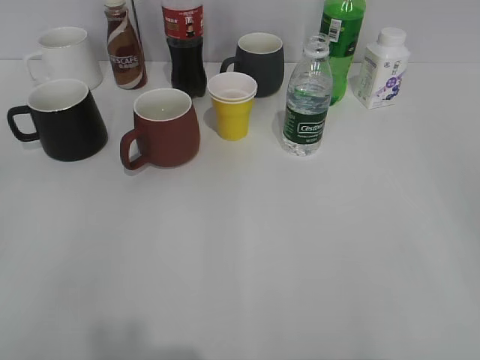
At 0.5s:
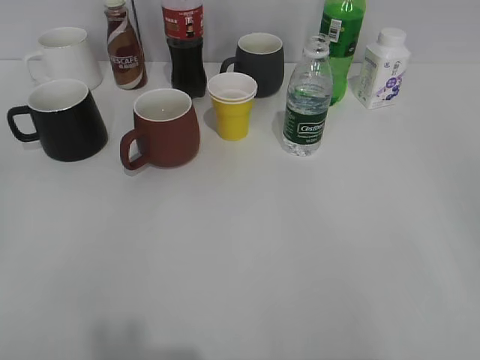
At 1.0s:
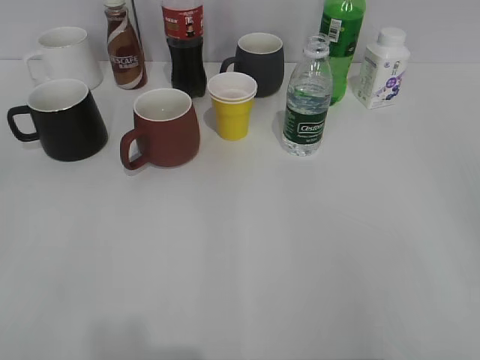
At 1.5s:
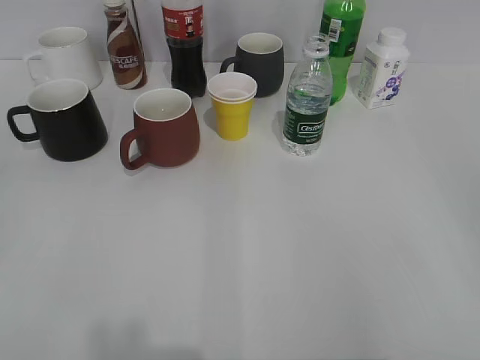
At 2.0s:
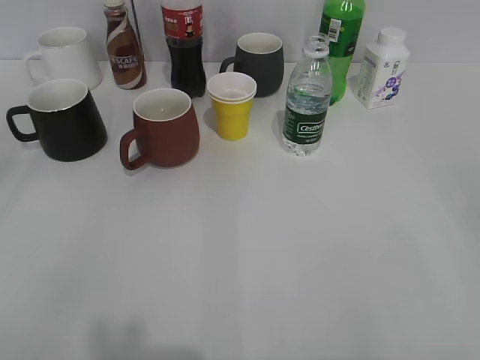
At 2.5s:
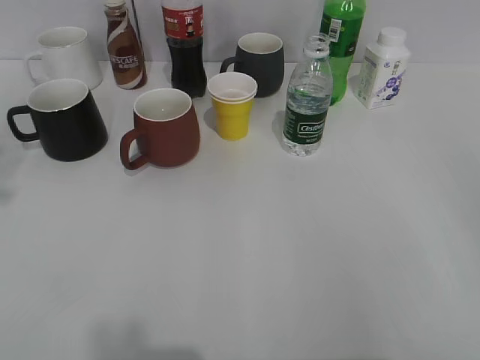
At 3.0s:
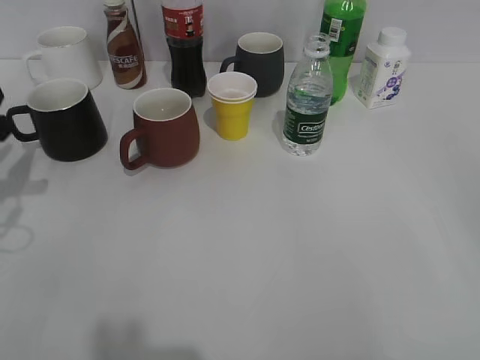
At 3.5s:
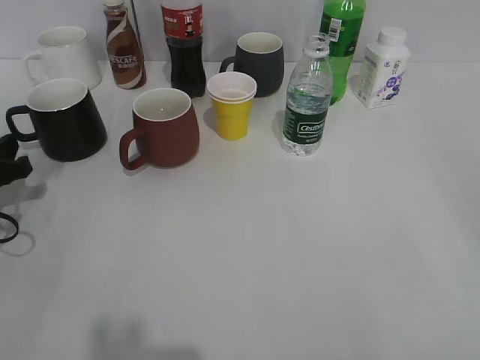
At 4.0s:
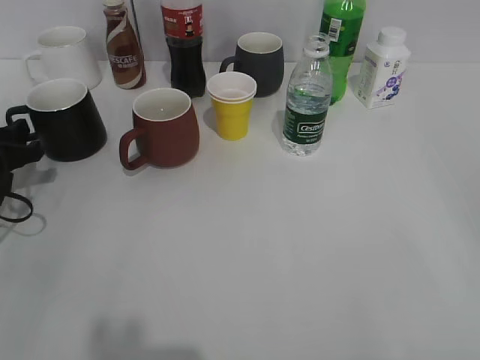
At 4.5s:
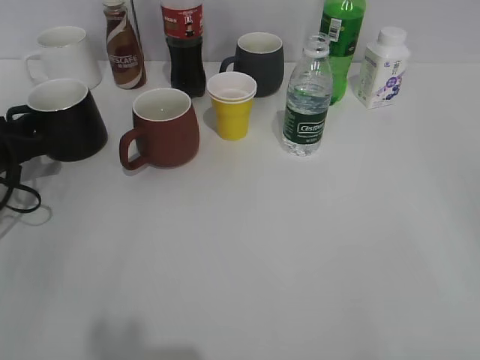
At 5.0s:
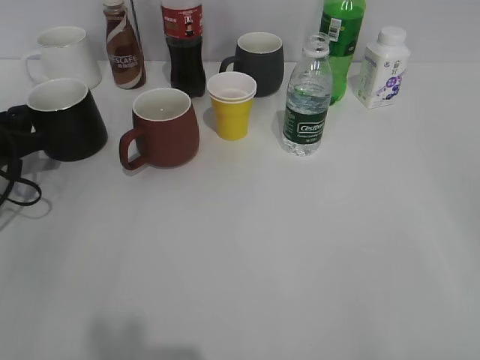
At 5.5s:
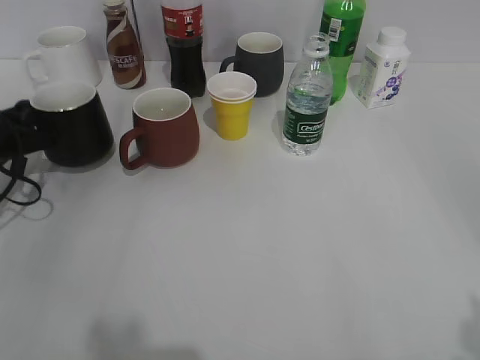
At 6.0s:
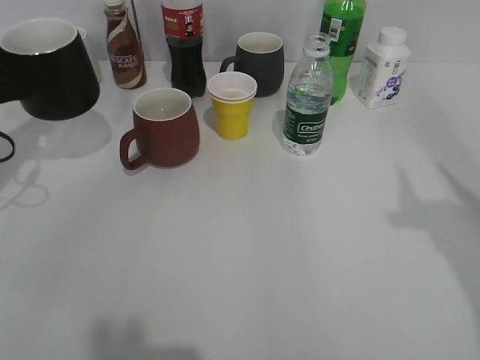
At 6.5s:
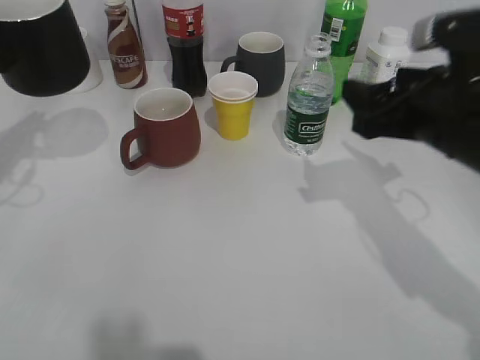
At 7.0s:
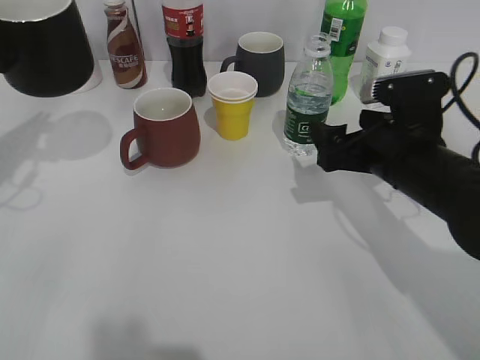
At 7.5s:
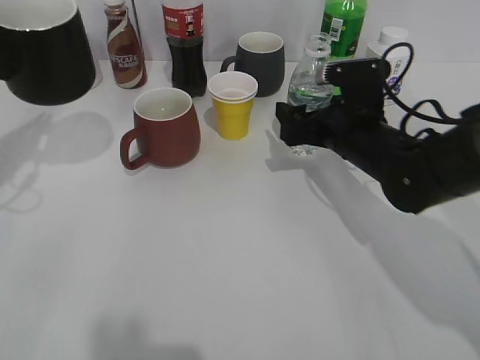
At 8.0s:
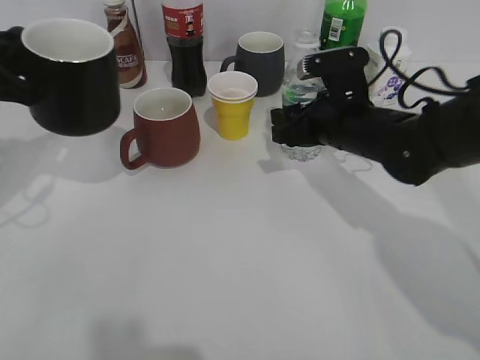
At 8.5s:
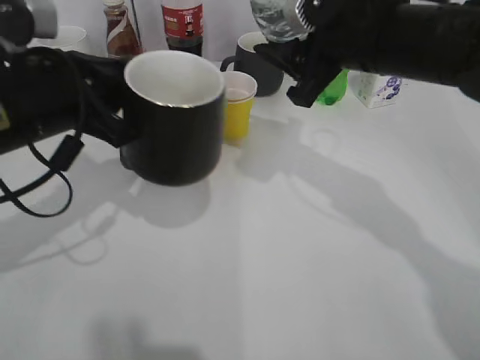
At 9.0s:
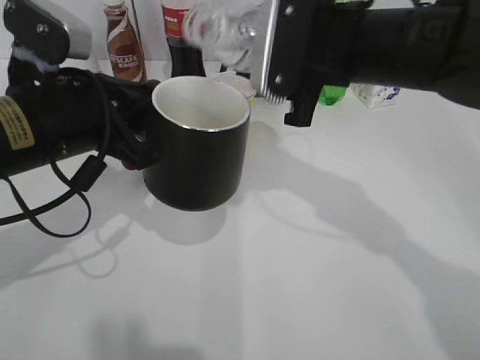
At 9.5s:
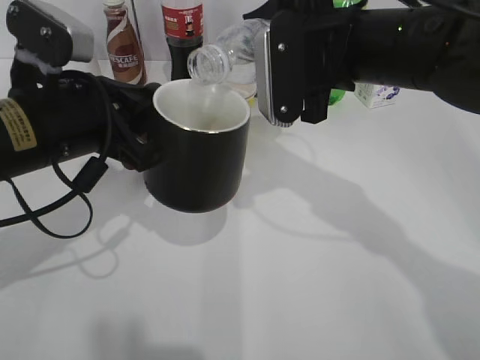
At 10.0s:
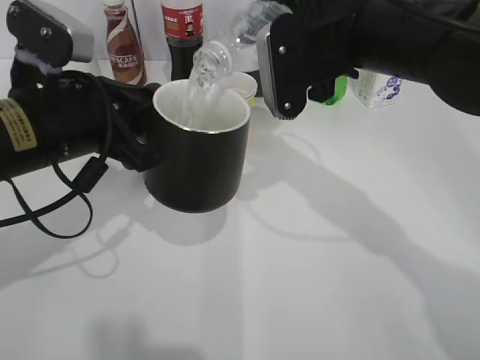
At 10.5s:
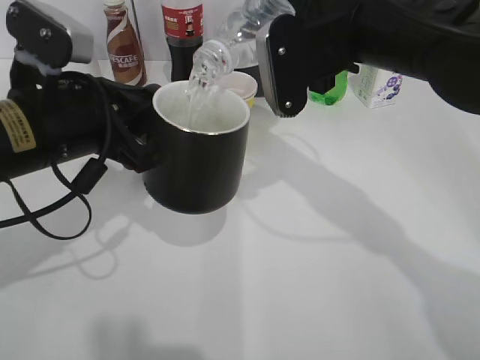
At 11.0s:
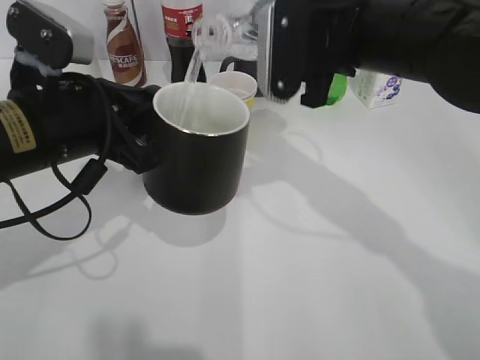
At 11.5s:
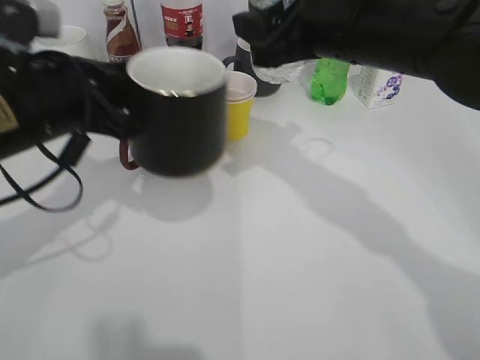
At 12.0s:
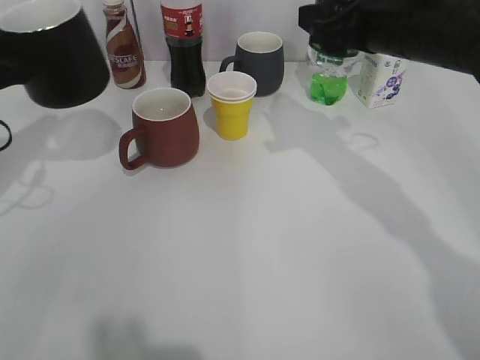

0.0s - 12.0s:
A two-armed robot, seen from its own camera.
Step, 2.0s - 5.0s: Grasp the black cup with left gripper.
Step, 5.5s - 6.0s: Lift the black cup with left gripper.
Step, 6.5s - 7.5s: Grasp the bottle with water with right gripper.
Step, 8.0s - 11.0s: Pour the water from bottle to cup with right gripper.
2.0s - 4.0s: The left gripper is displaced forward and downward by some 35 cm.
4.0s - 6.0s: The left gripper travels upward by roughly 10 cm, and closes.
6.0s - 8.0s: The left gripper ends up roughly 5 cm from where it was; the right gripper travels forward, downward and to the left by approximately 35 cm, and opens and closes again.
8.0s - 10.0s: The right gripper travels upward by some 15 cm, while the left gripper moves to the right, roughly 10 cm.
10.0s - 12.0s: The left gripper shifts roughly 15 cm to the left and forward. Meanwhile the right gripper shifts roughly 5 cm to the right.

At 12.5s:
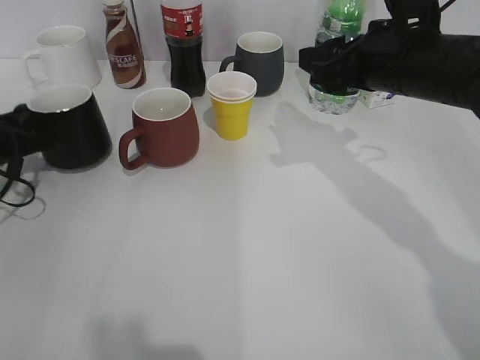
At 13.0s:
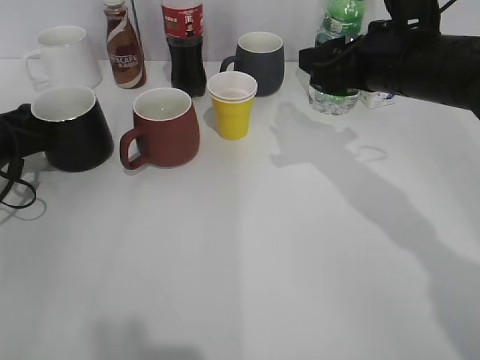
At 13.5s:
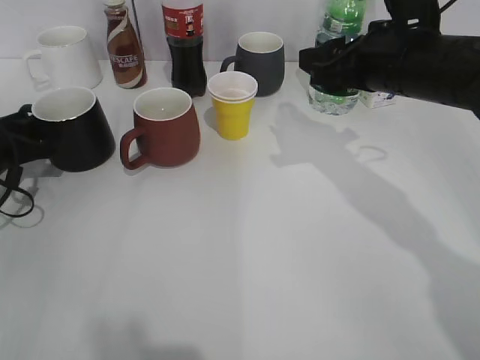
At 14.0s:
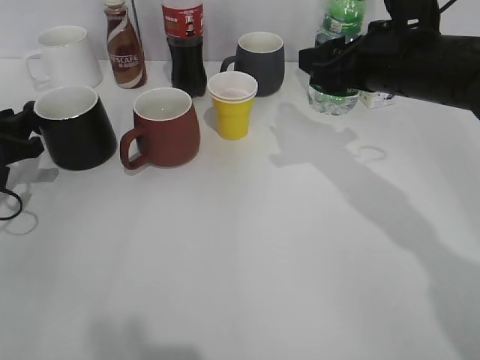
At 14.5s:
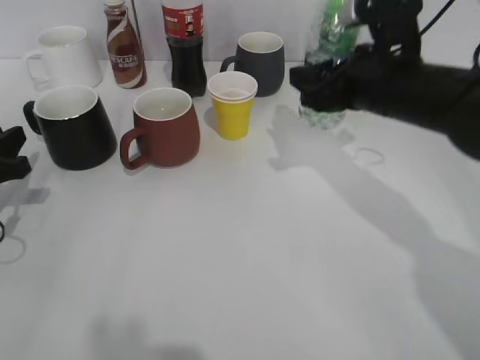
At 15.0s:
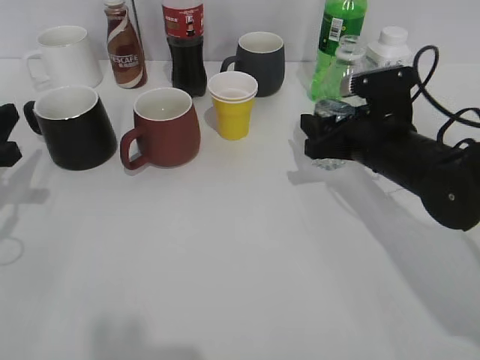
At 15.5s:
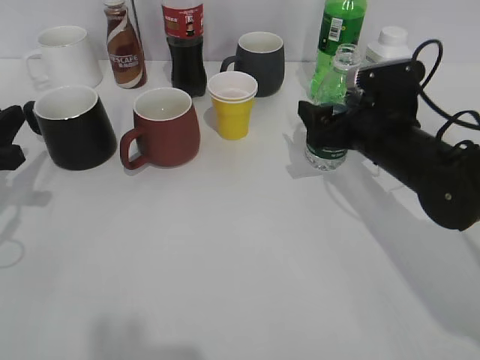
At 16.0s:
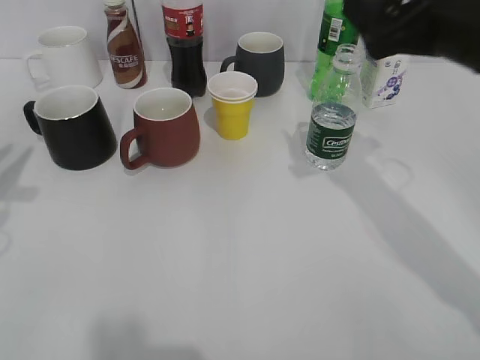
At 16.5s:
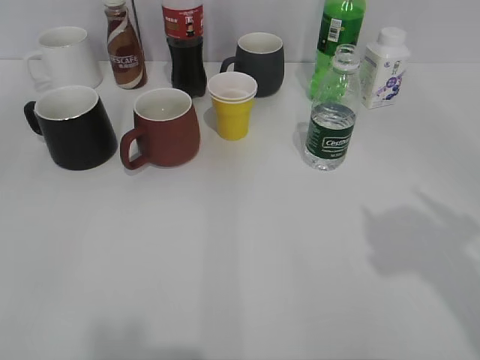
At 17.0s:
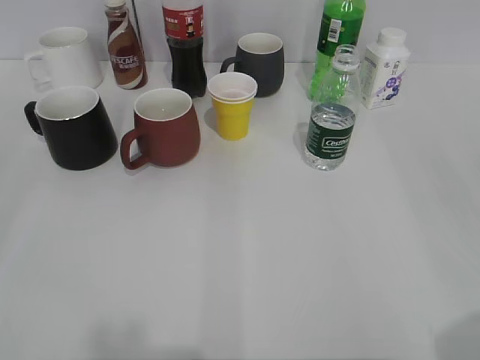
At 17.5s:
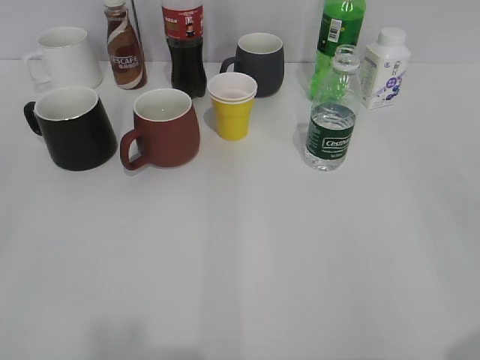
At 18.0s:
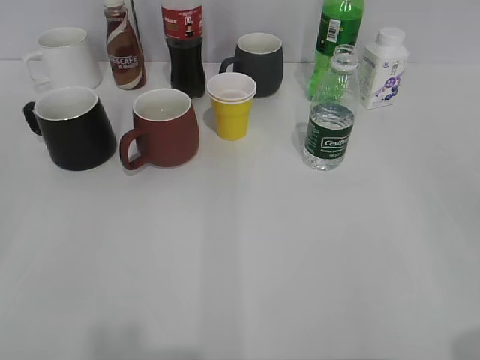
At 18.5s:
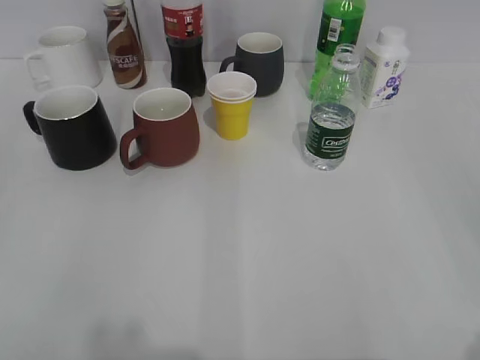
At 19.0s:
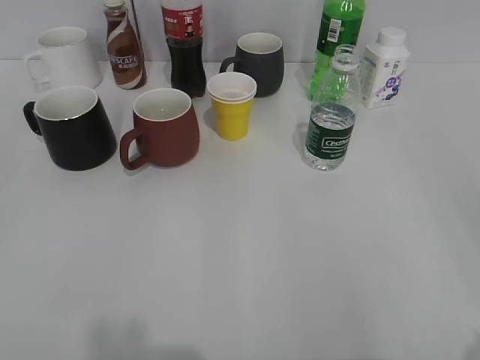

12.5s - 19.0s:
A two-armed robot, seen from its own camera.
Step, 14.0s - 15.5s: Place the water bottle on the table with right gripper.
12.5s - 14.5s: The left gripper travels backward by about 5 cm, and opens.
14.5s - 17.0s: The left gripper moves backward and upward, roughly 35 cm, and opens up. Meanwhile the right gripper moves backward and to the right, about 35 cm, and opens its fingers.

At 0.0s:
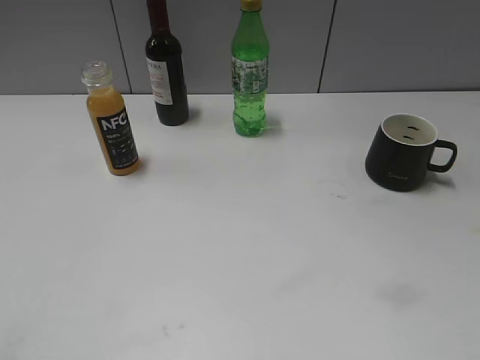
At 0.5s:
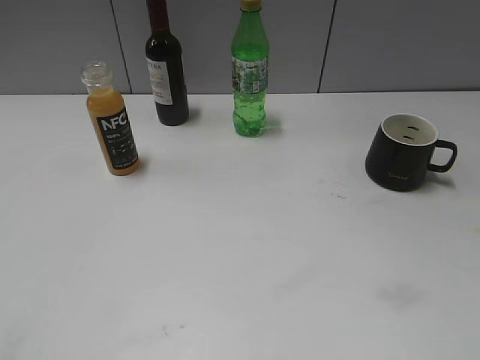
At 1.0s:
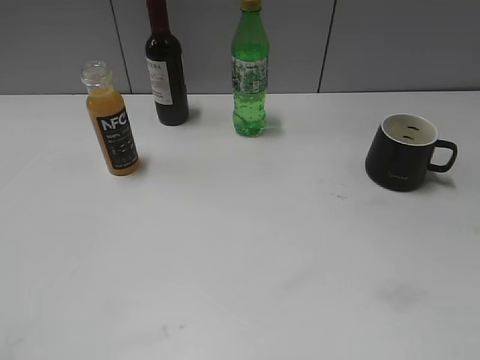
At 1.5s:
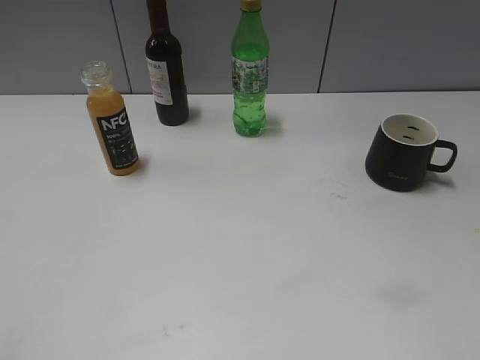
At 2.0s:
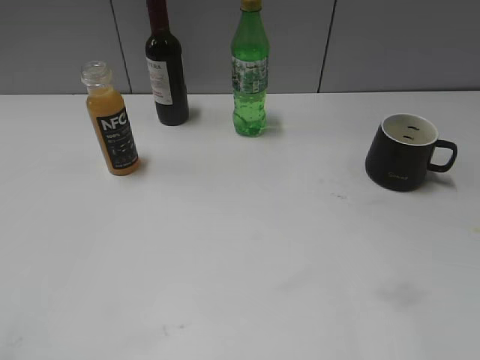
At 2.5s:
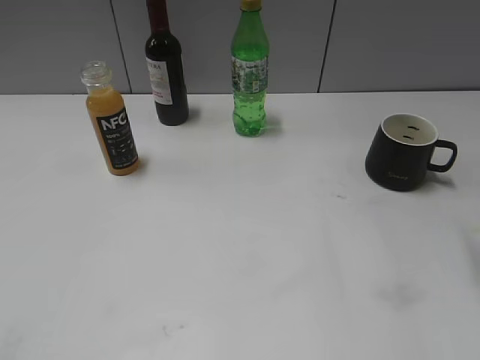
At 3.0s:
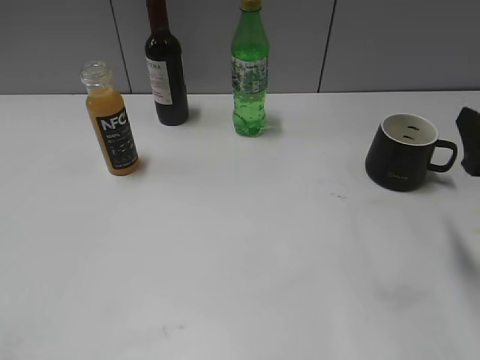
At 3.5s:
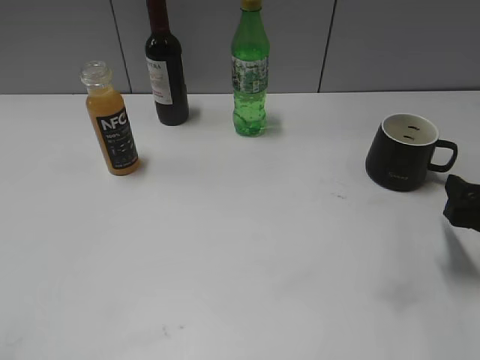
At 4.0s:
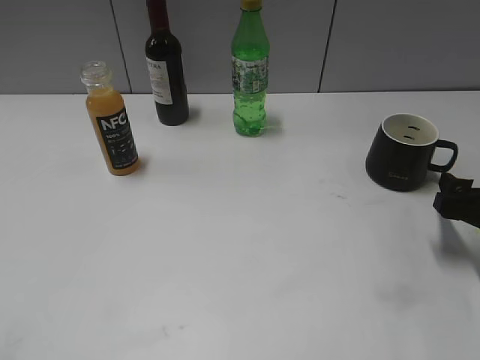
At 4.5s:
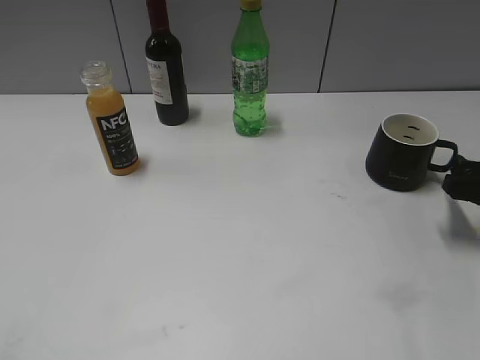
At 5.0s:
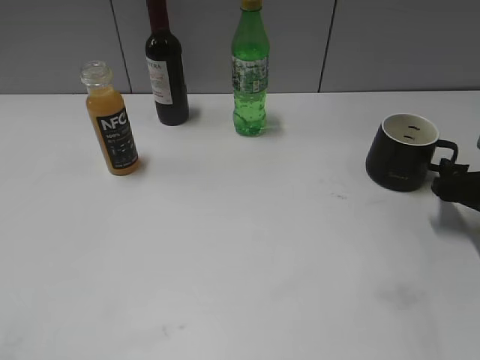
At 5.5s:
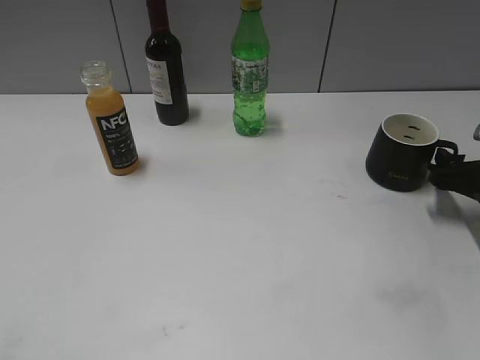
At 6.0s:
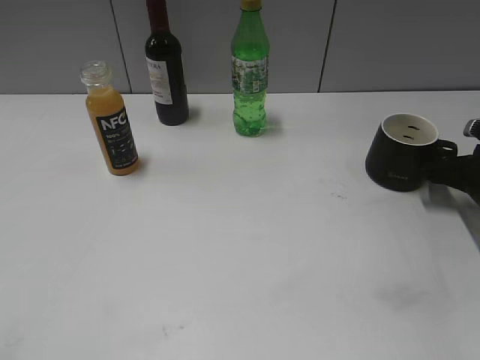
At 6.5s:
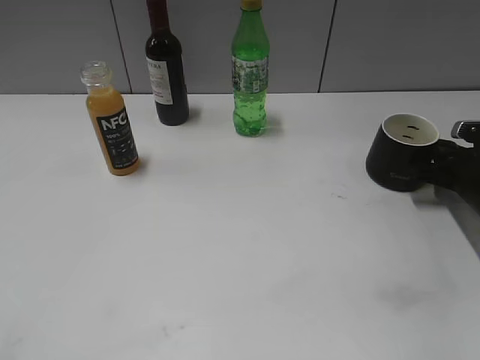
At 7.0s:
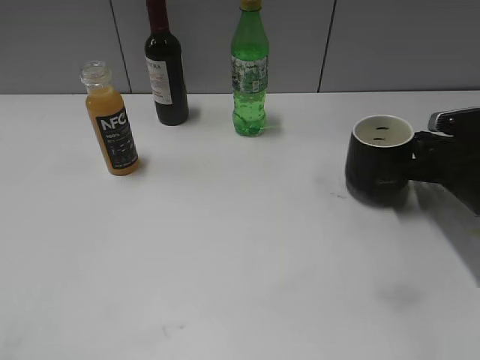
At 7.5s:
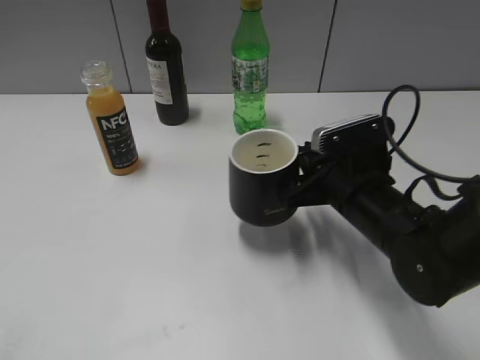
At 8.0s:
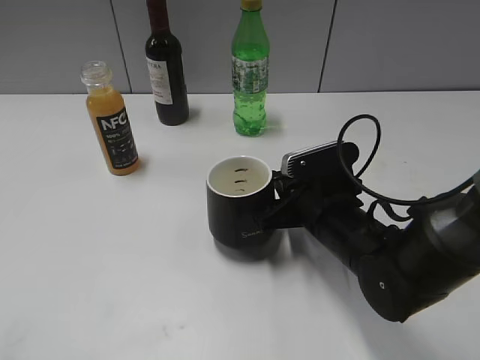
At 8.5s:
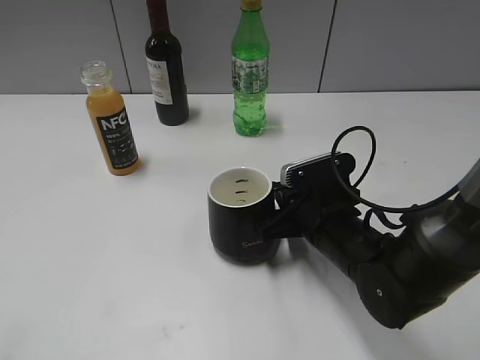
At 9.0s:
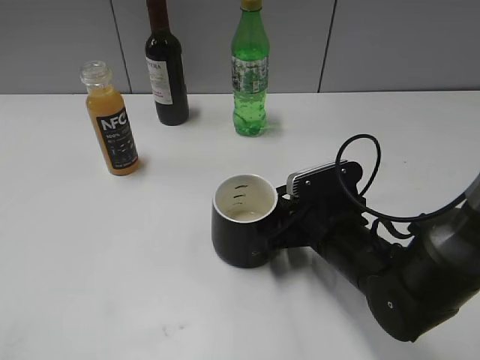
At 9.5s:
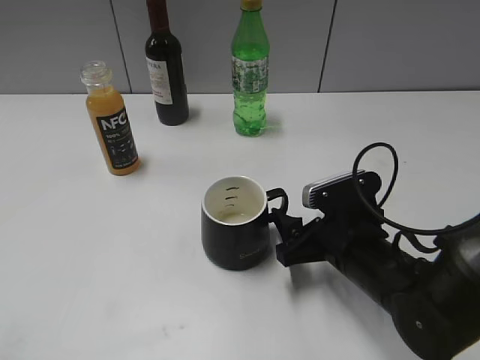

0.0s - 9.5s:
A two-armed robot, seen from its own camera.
Step, 3.0s - 6.5s: Grasp the black cup with right gripper.
Step, 7.0s - 9.0s: Place the black cup in the center of view with right gripper.
2.0s - 4.0s: The right gripper moves downward and forward, about 25 cm.
4.0s - 5.5s: The right gripper shifts roughly 5 cm forward.
5.5s - 7.5s: The right gripper is displaced to the left by approximately 20 cm, and closes up.
7.5s - 9.5s: The right gripper ends up approximately 5 cm from where it was, and opens up.
